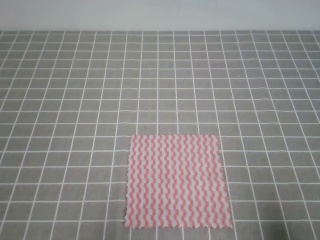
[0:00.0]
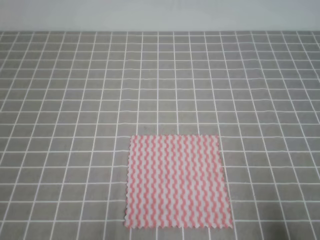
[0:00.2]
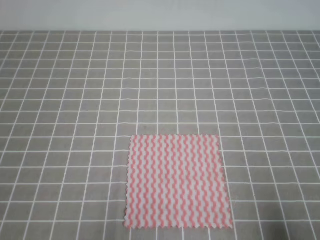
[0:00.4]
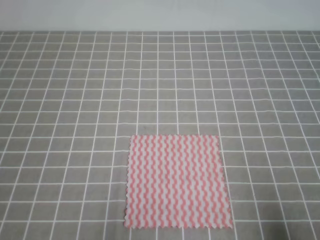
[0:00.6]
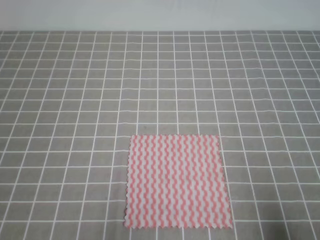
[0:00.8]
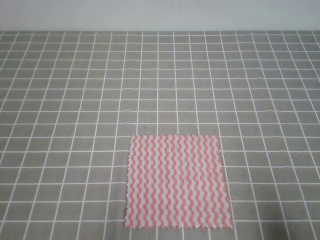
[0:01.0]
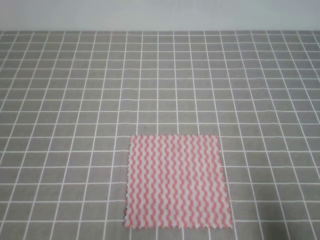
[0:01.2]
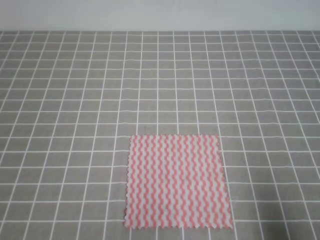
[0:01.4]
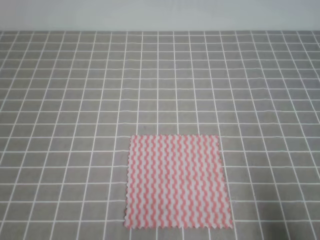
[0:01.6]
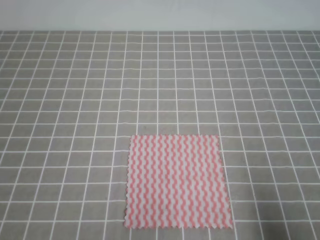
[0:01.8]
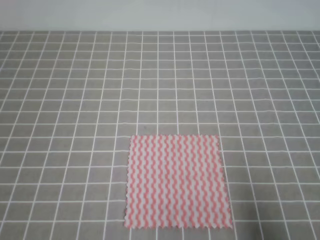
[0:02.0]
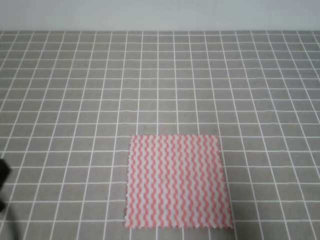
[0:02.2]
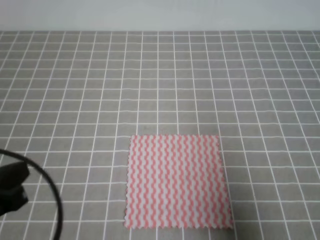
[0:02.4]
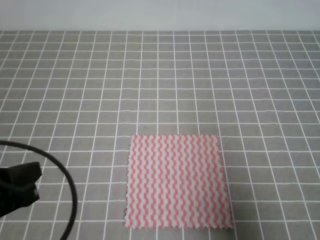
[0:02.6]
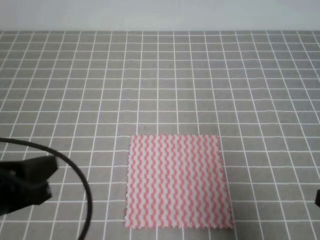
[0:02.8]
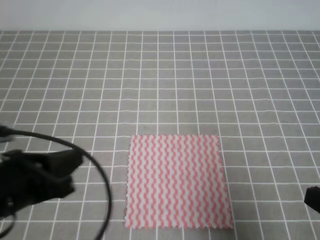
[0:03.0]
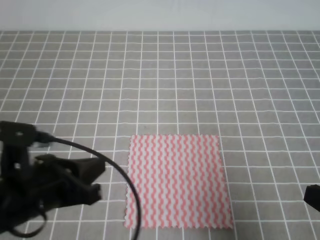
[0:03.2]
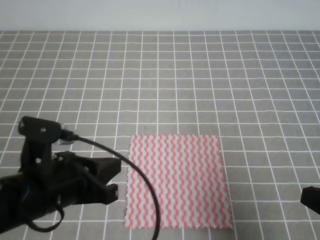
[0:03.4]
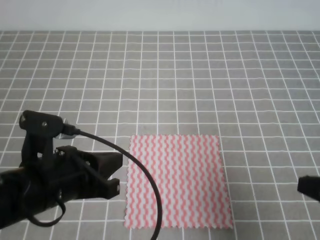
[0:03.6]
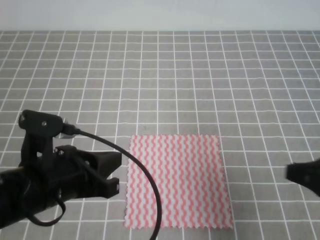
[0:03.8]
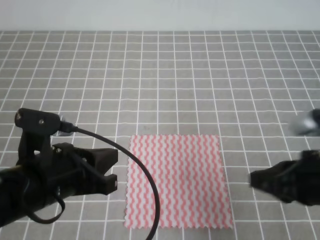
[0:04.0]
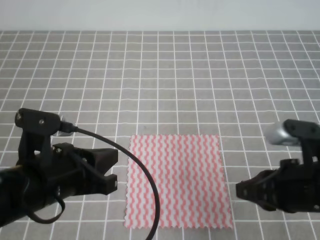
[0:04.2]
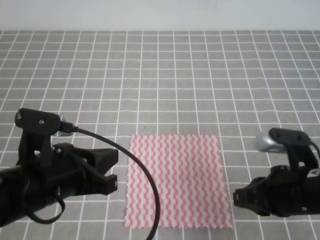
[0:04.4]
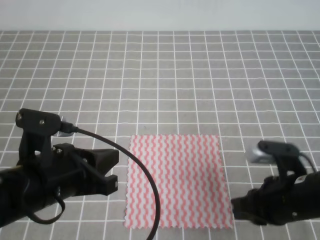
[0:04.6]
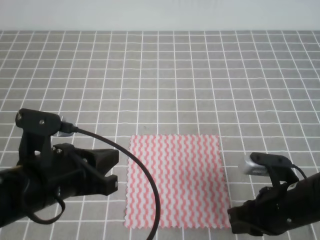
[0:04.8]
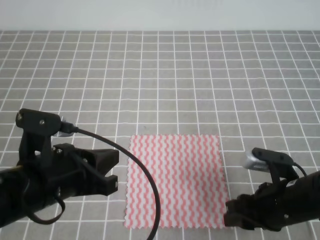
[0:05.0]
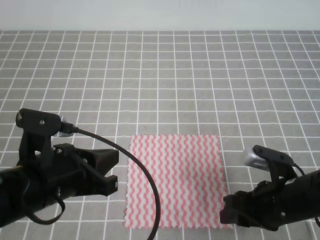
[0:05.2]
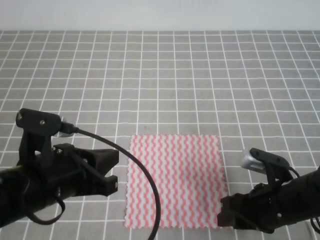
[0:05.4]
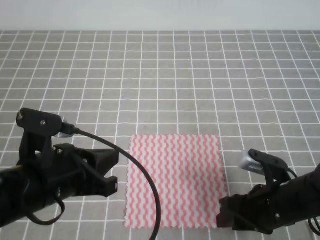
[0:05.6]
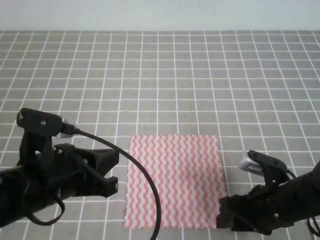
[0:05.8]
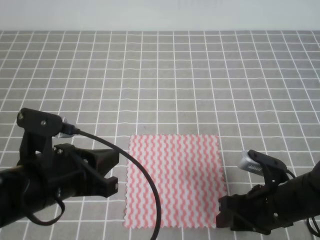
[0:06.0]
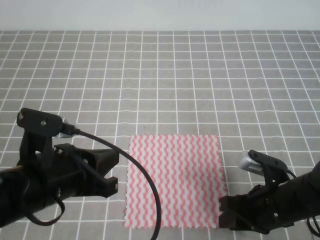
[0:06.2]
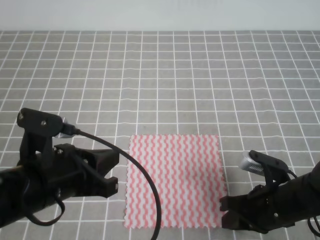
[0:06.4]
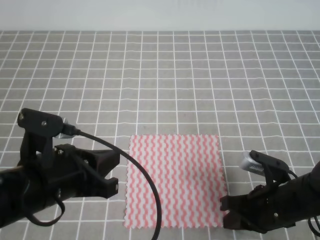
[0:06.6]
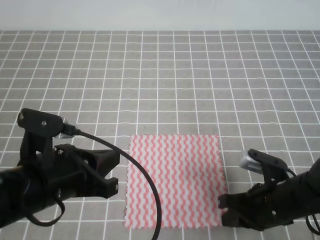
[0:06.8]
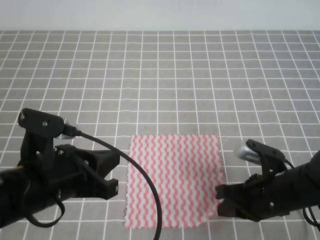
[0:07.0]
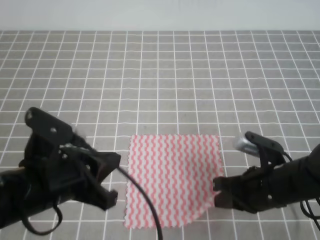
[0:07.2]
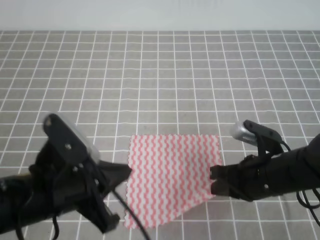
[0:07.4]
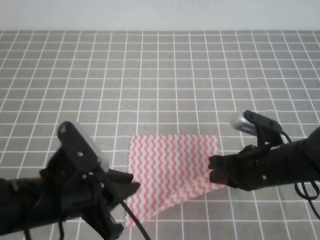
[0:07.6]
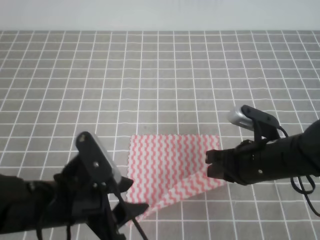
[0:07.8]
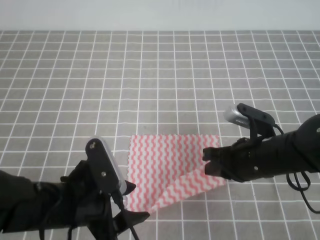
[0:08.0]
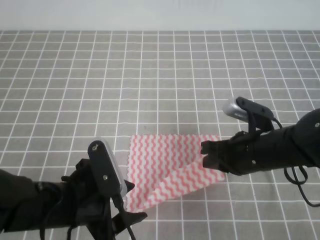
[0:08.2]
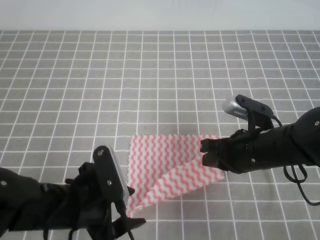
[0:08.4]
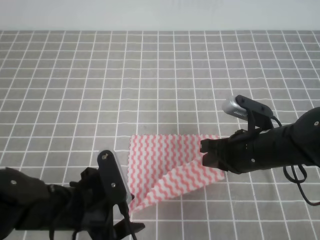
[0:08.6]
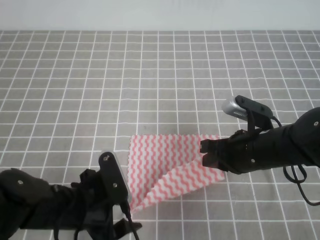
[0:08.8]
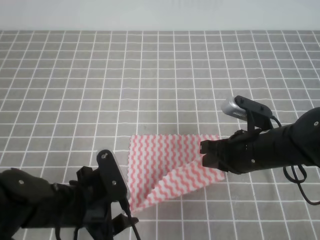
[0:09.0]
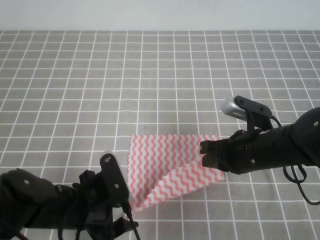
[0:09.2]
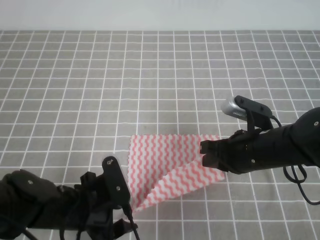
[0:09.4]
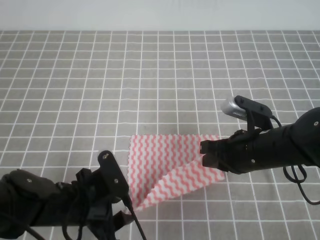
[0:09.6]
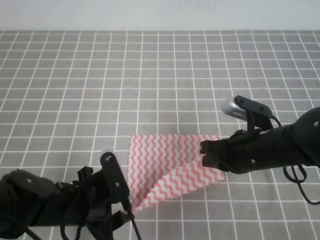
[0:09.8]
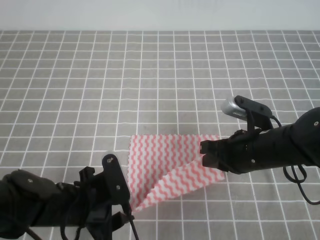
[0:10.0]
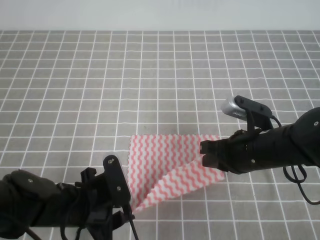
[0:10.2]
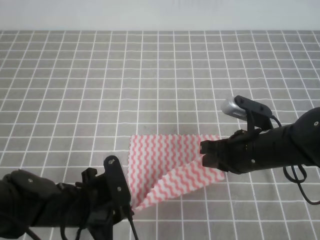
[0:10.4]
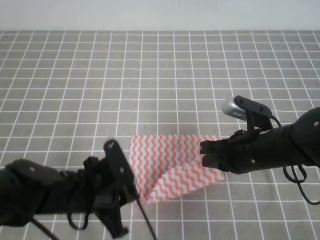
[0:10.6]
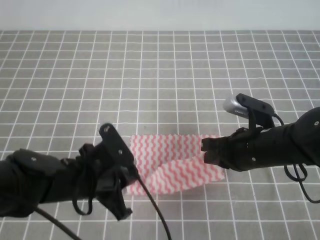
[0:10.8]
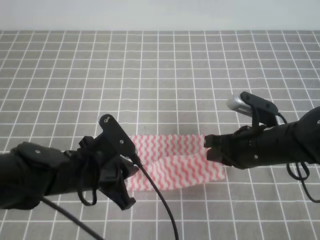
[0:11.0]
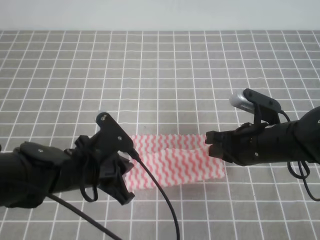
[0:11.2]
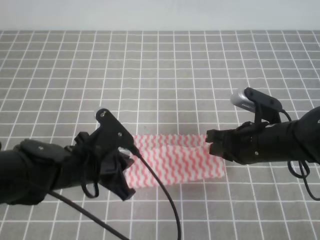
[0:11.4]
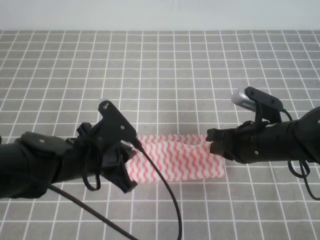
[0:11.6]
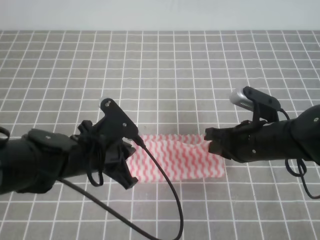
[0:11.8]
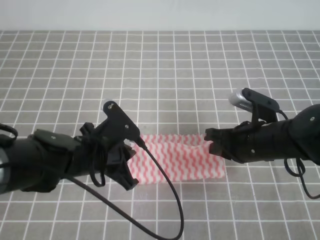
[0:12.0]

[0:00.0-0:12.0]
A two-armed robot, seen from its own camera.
0:01.6 to 0:03.0: The right gripper travels upward by some 5 cm; the left gripper shifts roughly 15 cm forward, to the right and upward.
0:03.0 to 0:04.4: The right gripper goes roughly 10 cm forward and to the left; the left gripper changes place by roughly 5 cm.
0:04.4 to 0:06.0: The right gripper travels downward by roughly 5 cm, and opens its fingers.
0:06.0 to 0:07.6: The left gripper opens up. The right gripper shifts by approximately 5 cm, and closes.
0:07.6 to 0:09.0: The left gripper goes roughly 5 cm downward, and opens its fingers.
0:09.0 to 0:10.4: The left gripper closes up.
0:10.4 to 0:12.0: The left gripper moves forward, approximately 5 cm.

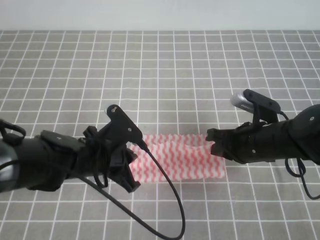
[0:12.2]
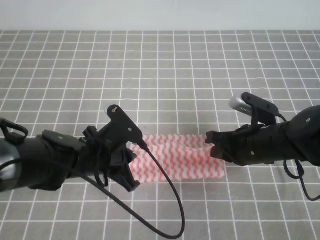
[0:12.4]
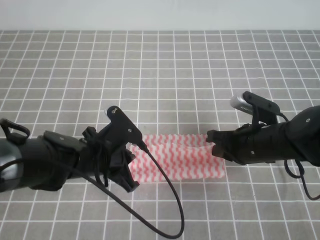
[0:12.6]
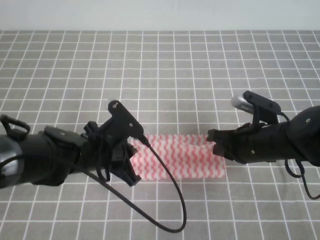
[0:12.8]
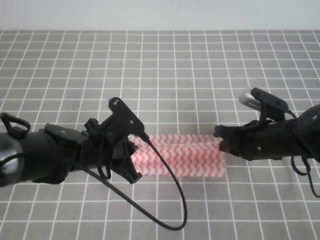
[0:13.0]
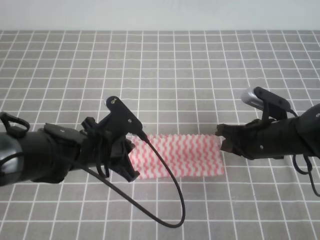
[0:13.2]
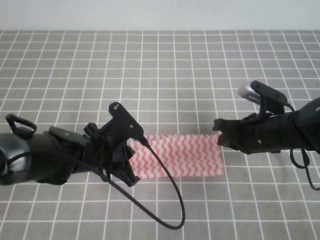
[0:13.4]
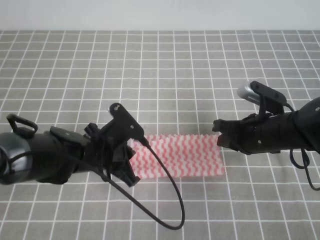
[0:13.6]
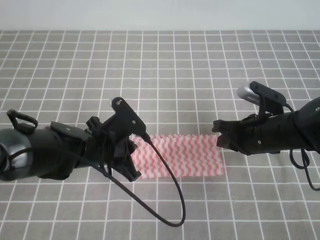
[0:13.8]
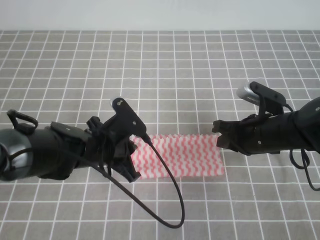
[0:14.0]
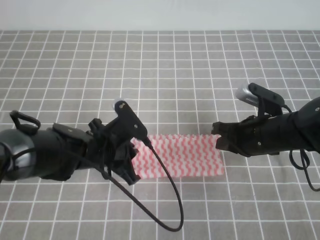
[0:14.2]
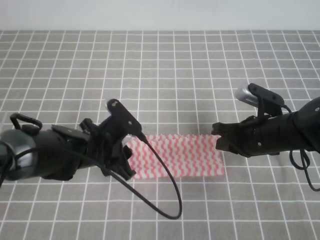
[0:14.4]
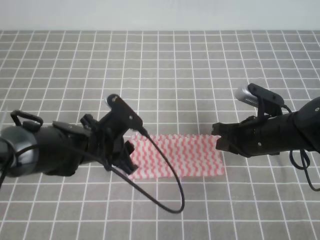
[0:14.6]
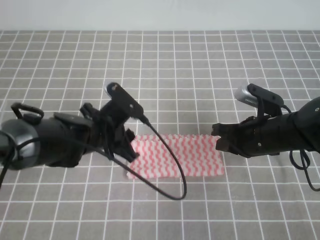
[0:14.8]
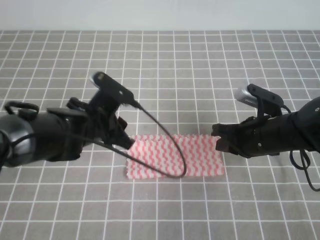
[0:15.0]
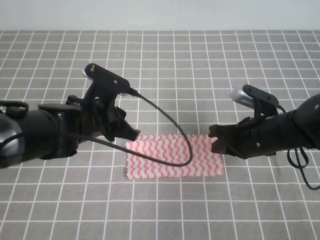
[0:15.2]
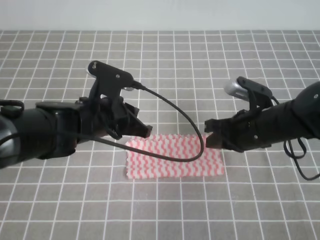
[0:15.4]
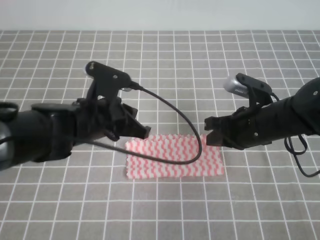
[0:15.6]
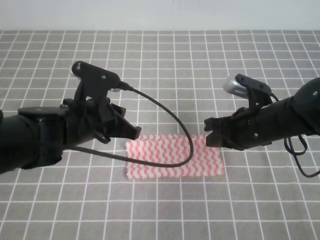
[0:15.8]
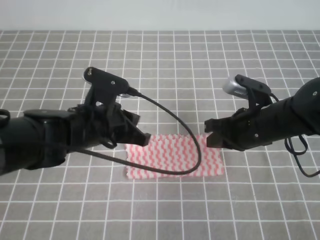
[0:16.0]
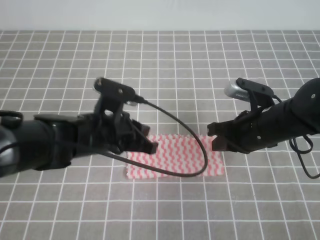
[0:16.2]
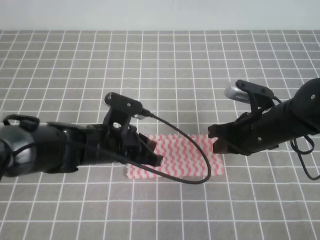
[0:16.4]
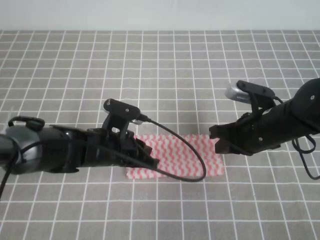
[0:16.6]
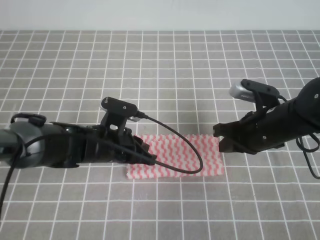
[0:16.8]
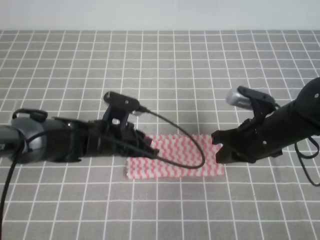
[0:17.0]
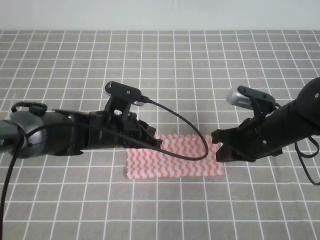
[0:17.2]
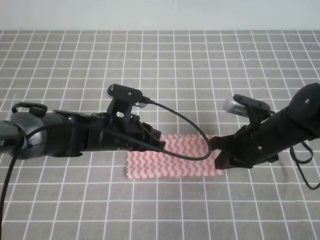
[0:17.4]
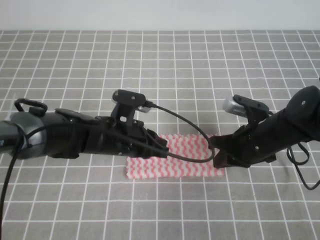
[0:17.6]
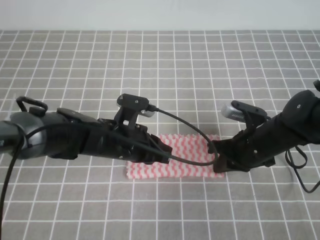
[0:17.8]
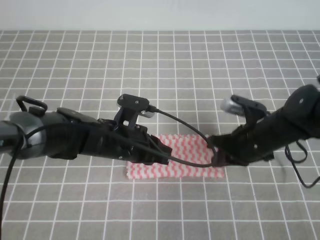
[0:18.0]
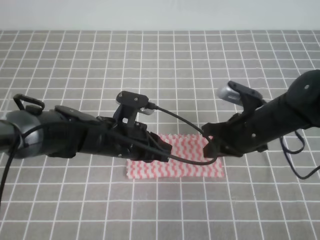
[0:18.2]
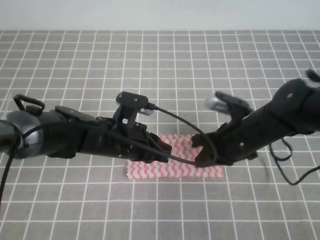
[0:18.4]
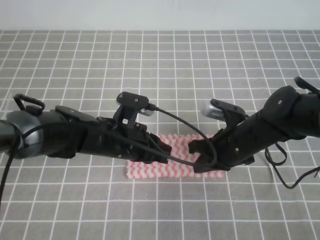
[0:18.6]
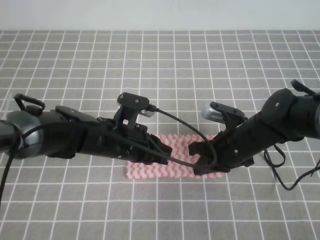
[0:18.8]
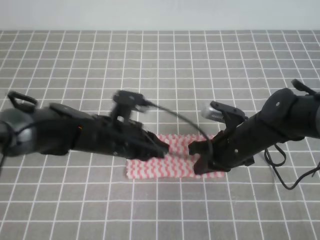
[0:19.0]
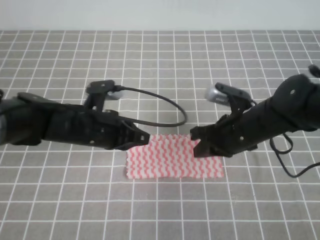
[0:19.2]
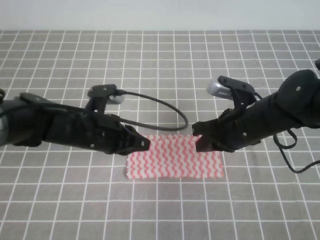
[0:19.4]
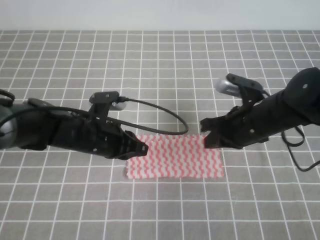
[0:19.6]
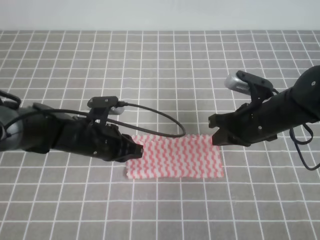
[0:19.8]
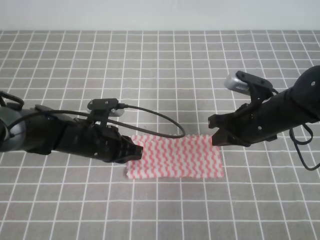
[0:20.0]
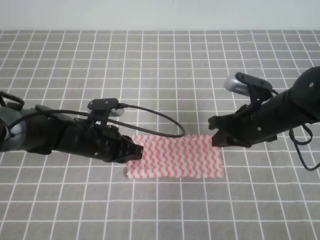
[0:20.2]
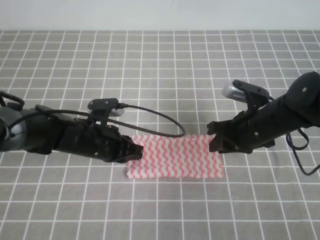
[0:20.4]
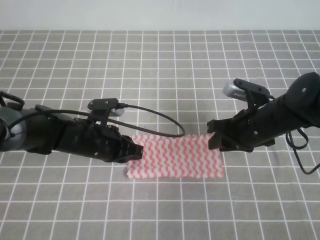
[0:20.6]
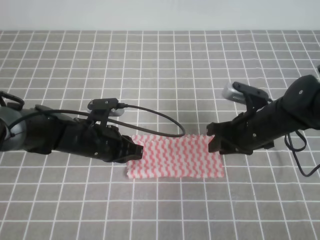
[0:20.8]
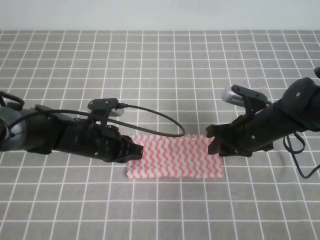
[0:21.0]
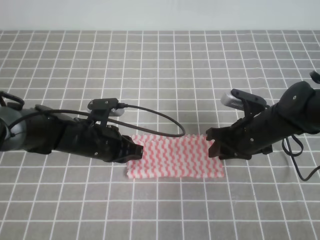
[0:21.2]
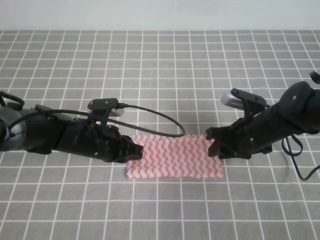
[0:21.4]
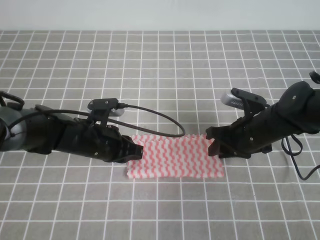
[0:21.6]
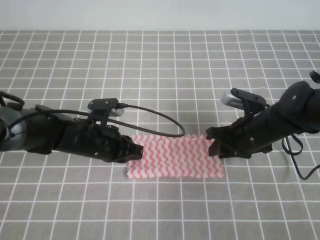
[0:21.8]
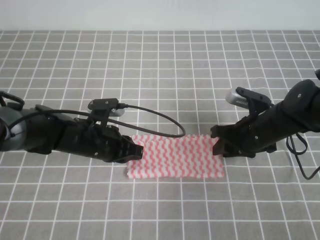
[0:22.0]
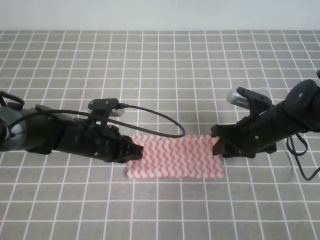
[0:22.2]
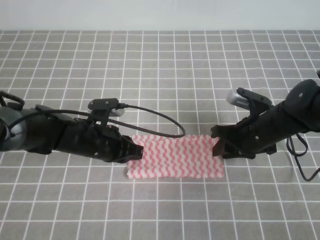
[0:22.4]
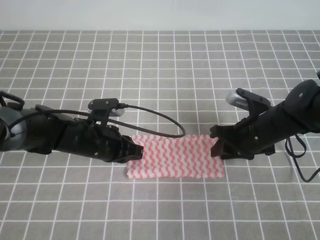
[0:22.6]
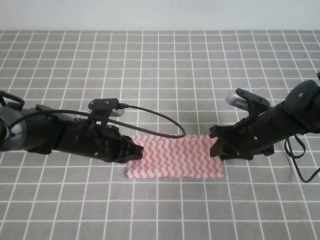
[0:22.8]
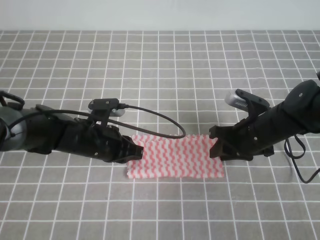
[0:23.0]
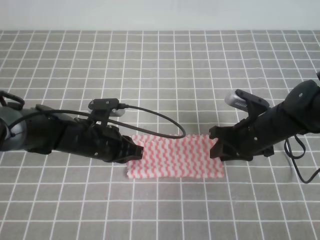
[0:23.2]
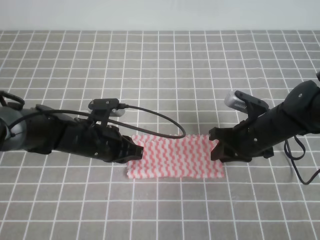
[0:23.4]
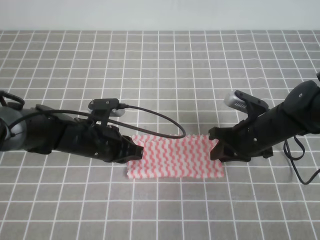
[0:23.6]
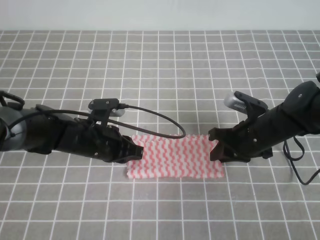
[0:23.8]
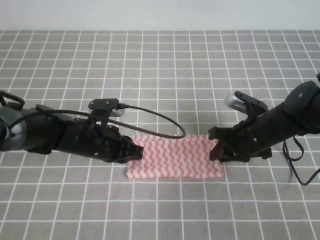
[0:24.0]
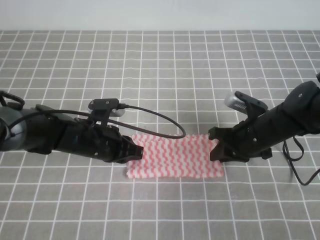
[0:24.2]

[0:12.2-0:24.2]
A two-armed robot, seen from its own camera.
0:12.2 to 0:13.8: The grippers stay close to where they were, moving slightly.
0:13.8 to 0:15.2: The left gripper opens, then closes once more.
0:16.6 to 0:18.2: The grippers move only a little.
0:18.2 to 0:19.8: The left gripper moves approximately 5 cm.
0:19.8 to 0:21.2: The right gripper opens up.
0:21.2 to 0:22.6: Both grippers stay about where they are.
0:22.6 to 0:24.2: The right gripper closes up.
